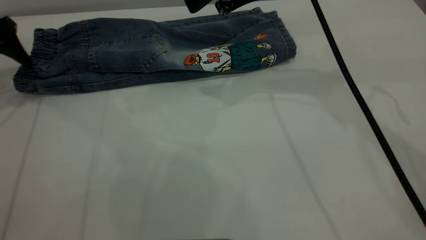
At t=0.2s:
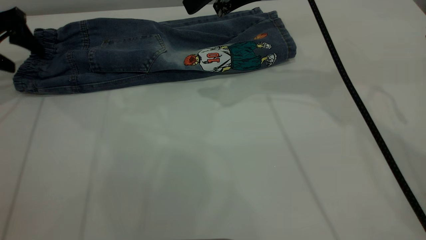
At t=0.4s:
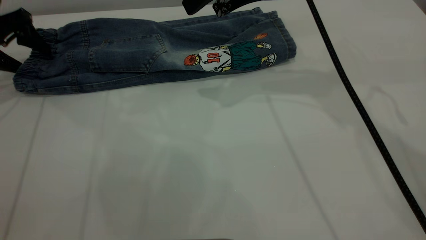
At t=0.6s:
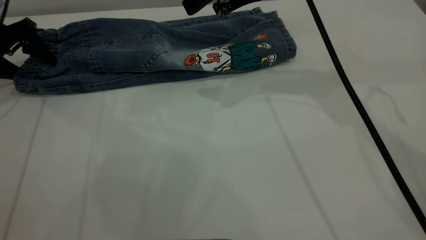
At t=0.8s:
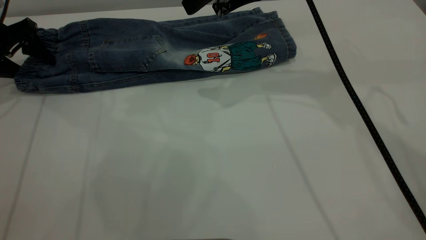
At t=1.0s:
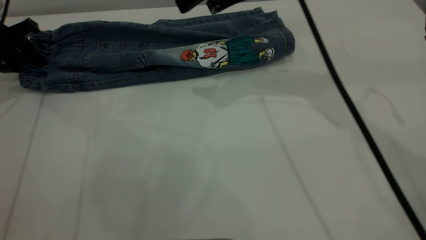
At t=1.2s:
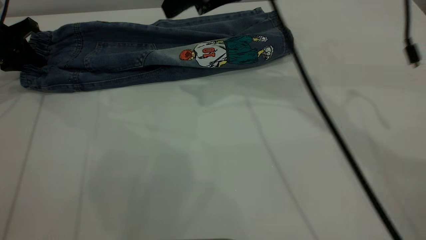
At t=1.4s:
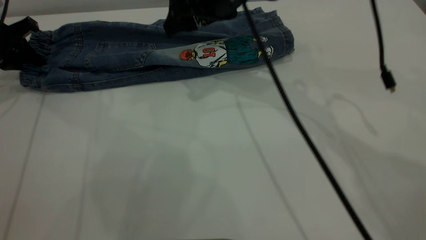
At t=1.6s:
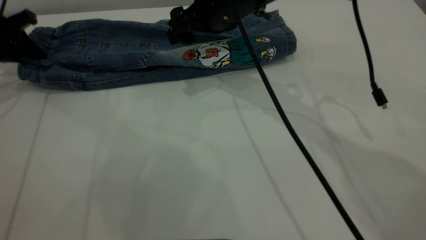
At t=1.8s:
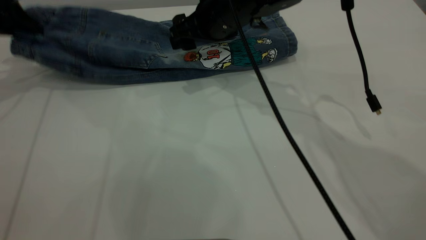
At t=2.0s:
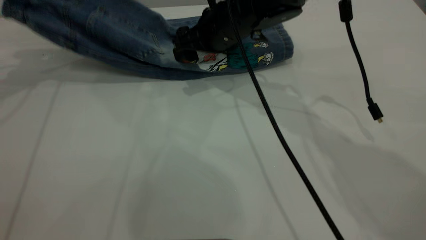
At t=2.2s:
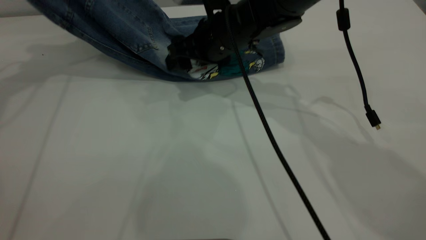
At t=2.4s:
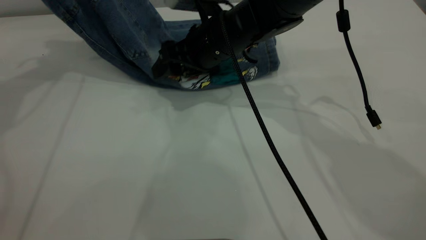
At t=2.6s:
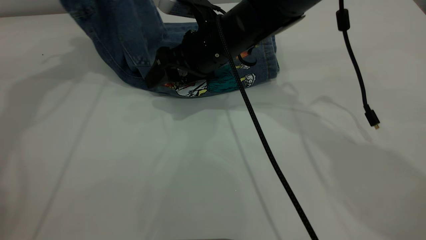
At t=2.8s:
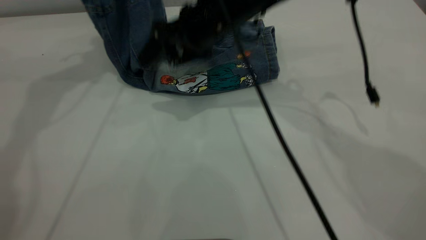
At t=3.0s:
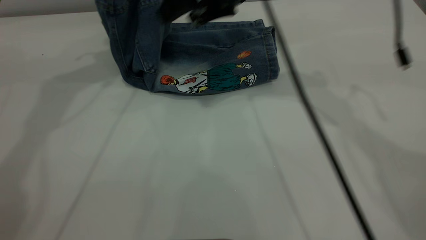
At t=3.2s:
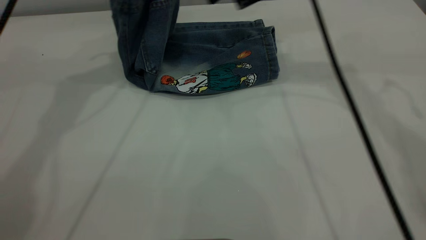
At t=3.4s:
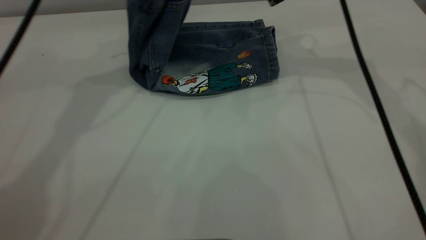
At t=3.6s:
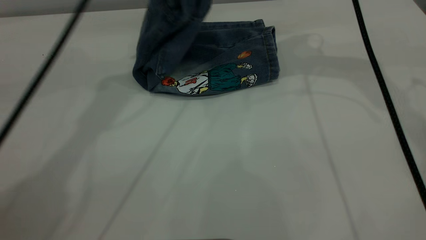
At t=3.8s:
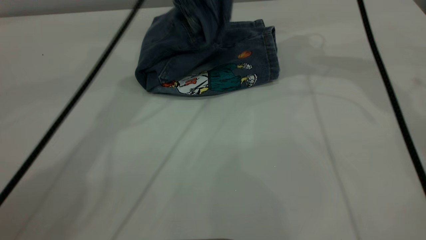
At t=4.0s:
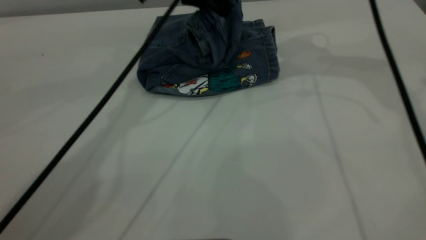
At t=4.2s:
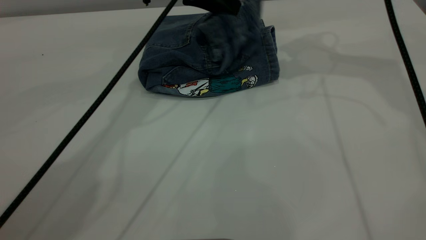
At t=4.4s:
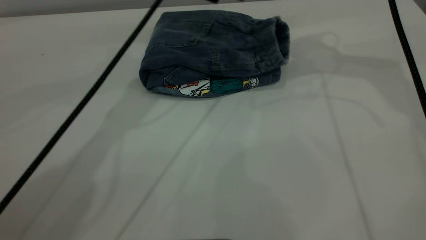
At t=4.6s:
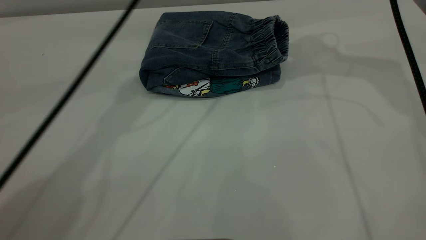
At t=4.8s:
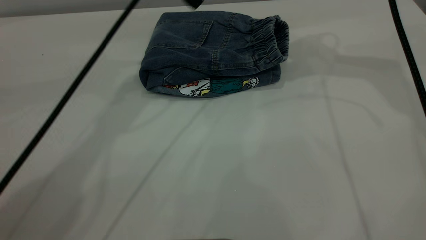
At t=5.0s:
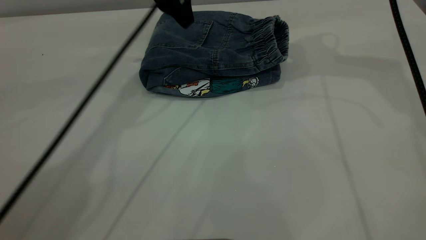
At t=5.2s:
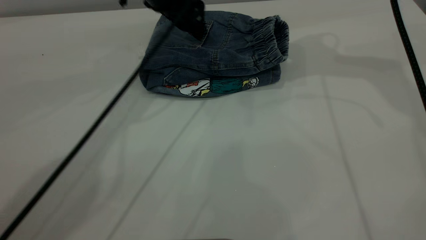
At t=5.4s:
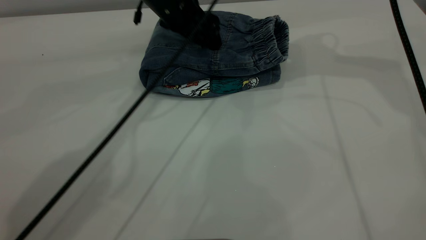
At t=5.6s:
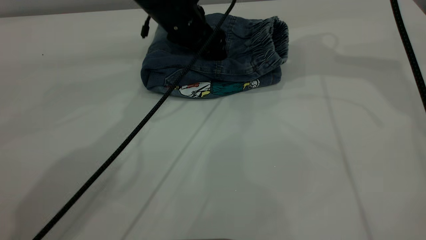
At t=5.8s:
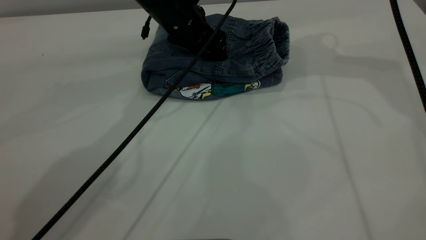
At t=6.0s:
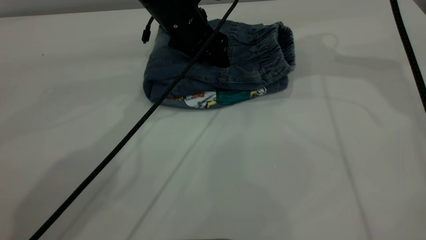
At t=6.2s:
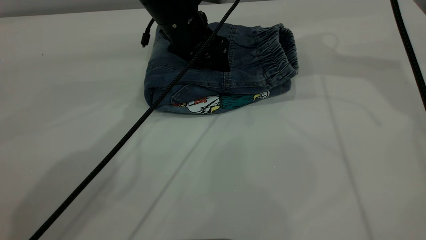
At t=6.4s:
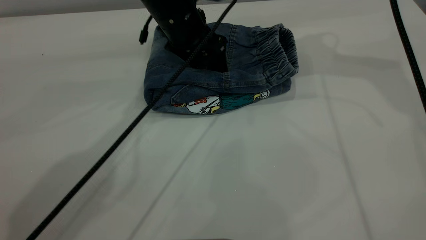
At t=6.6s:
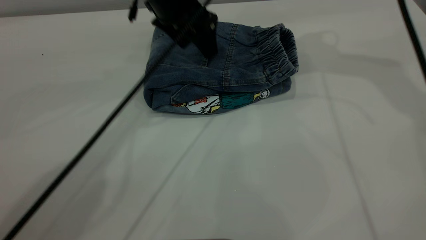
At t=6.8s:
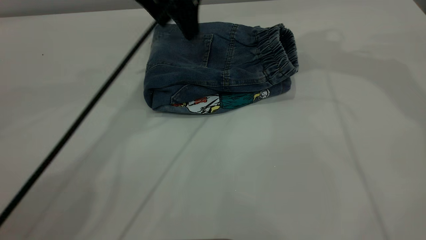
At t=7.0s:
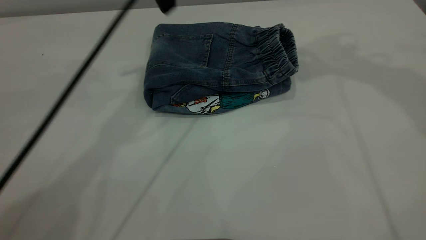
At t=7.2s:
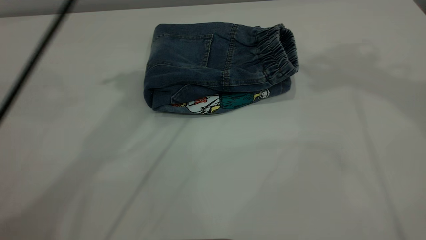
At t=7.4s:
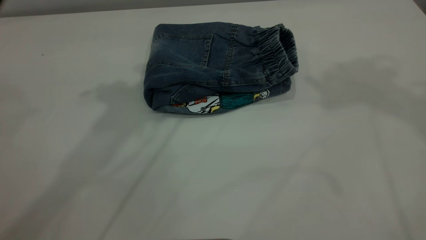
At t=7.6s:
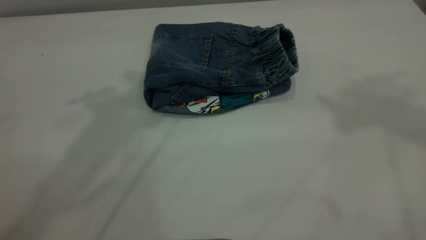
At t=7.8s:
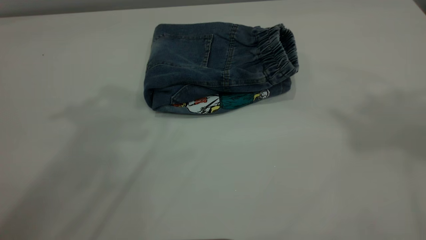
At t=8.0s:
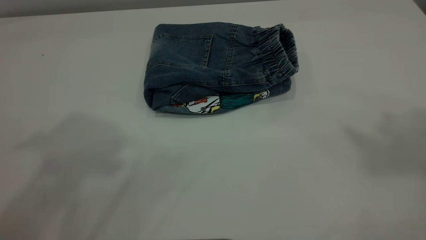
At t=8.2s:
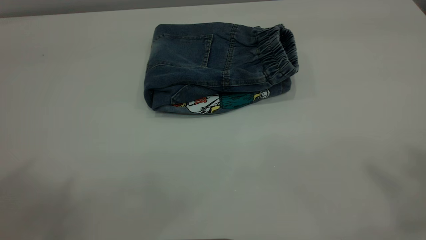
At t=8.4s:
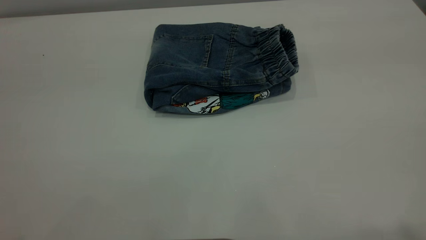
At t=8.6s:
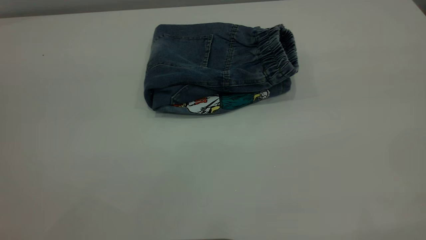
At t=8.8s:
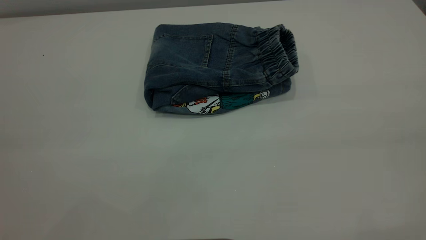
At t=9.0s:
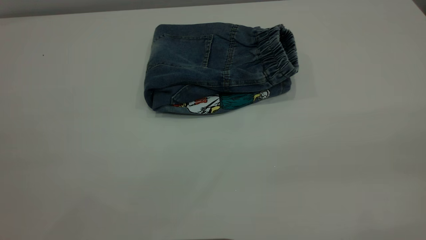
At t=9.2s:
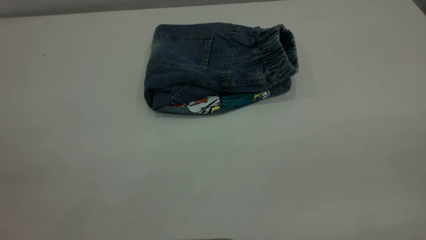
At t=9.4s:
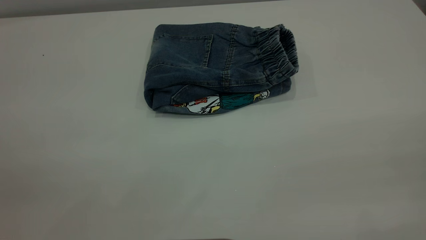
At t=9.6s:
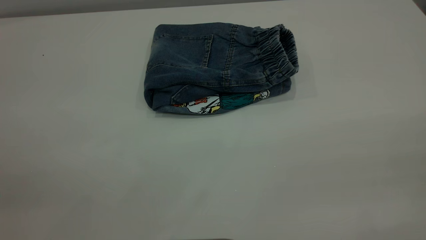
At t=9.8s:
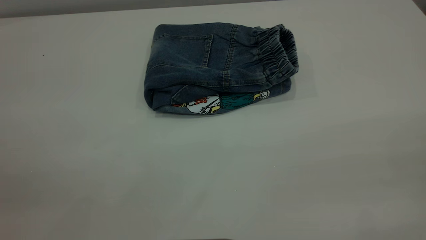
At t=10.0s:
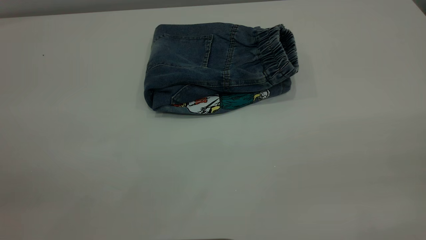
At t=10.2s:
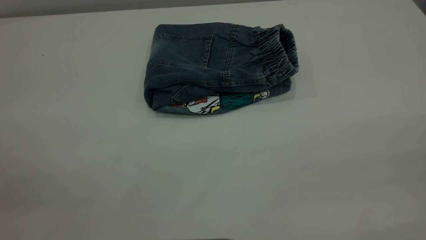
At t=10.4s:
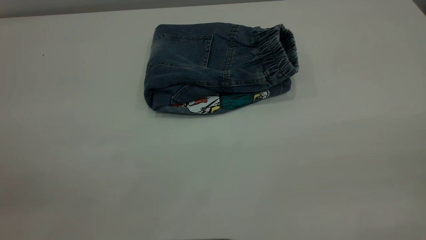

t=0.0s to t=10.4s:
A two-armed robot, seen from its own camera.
Step, t=0.0s to t=4.4s: Fold the pants from left to right.
t=0.0s to t=1.4s: The right gripper moves downward and to the left, some 10 cm. The left gripper closes up.
t=1.4s to t=3.0s: The left gripper shifts roughly 25 cm to the right and upward; the right gripper ends up some 5 cm from where it was.
t=3.0s to t=4.4s: The right gripper is displaced to the right and upward by approximately 15 cm, while the left gripper is displaced to the right and downward by approximately 15 cm, and opens.
t=4.4s to t=6.0s: The left gripper is displaced downward by about 10 cm.
t=6.0s to t=7.4s: The right gripper moves upward and backward, approximately 25 cm. Meanwhile the left gripper is displaced upward by some 25 cm.

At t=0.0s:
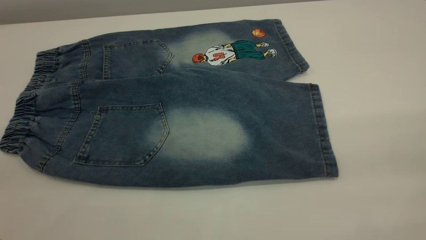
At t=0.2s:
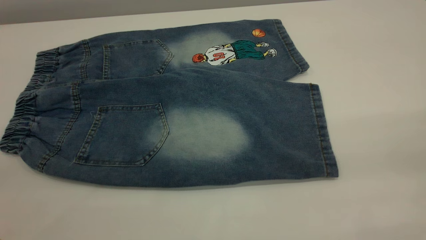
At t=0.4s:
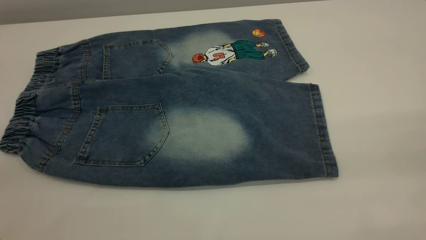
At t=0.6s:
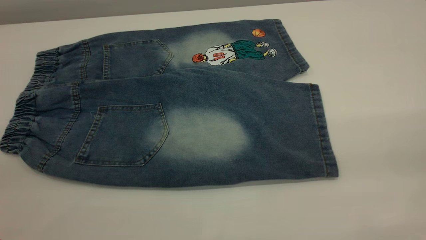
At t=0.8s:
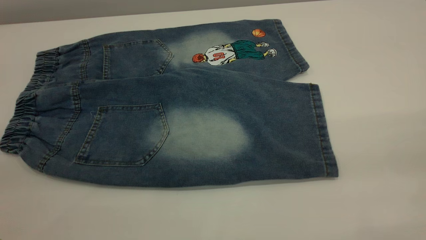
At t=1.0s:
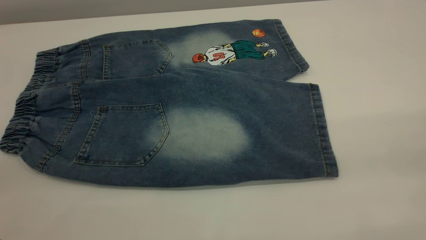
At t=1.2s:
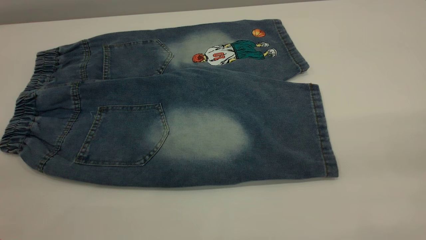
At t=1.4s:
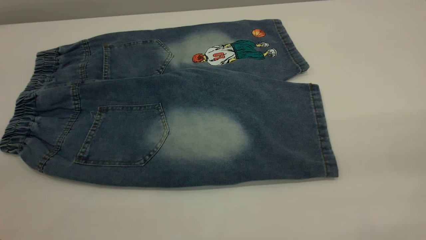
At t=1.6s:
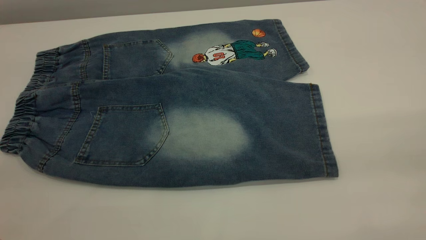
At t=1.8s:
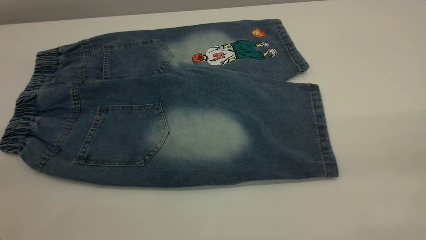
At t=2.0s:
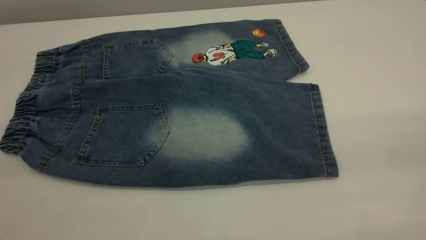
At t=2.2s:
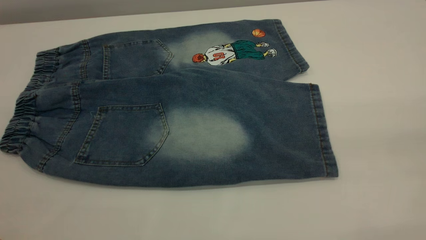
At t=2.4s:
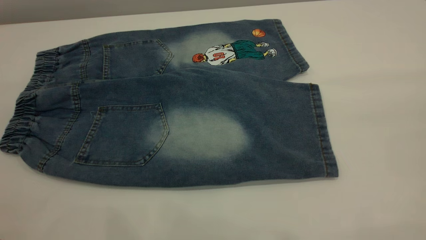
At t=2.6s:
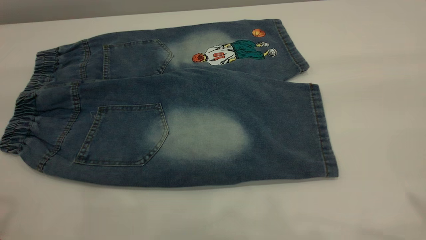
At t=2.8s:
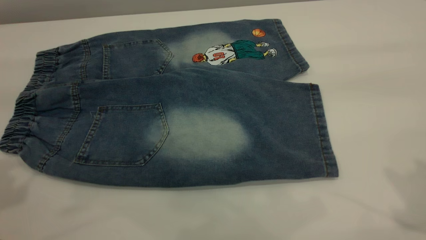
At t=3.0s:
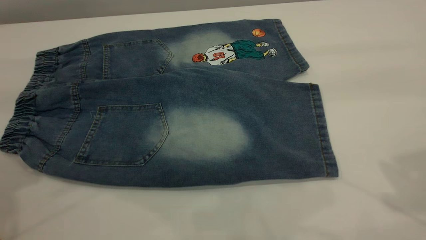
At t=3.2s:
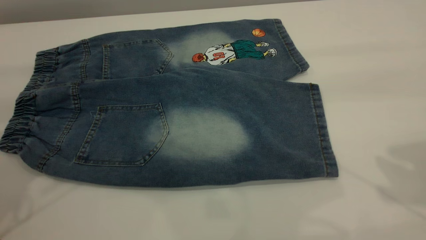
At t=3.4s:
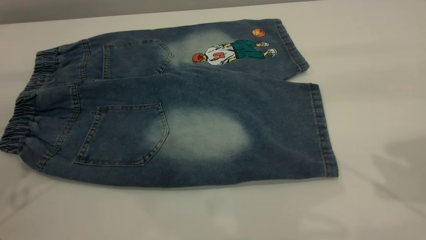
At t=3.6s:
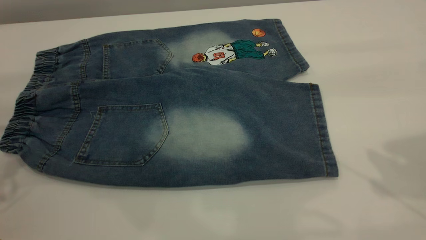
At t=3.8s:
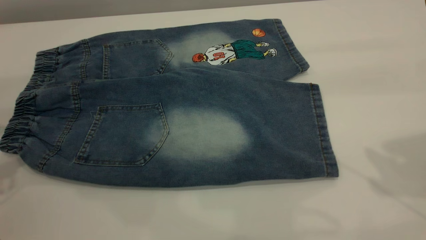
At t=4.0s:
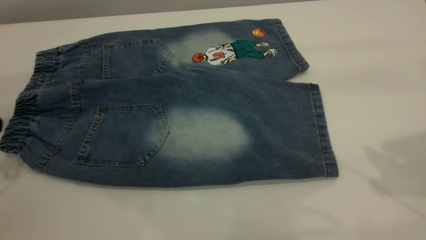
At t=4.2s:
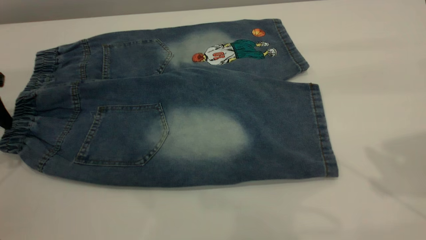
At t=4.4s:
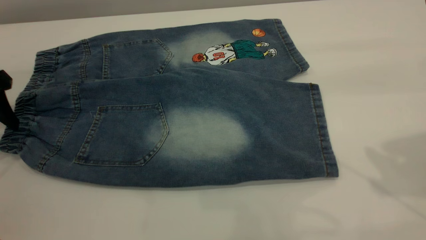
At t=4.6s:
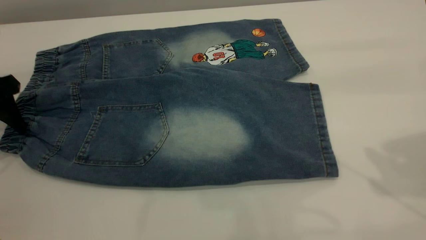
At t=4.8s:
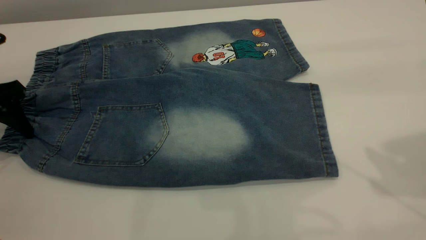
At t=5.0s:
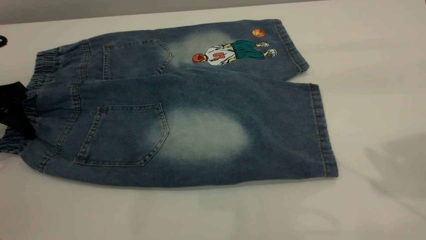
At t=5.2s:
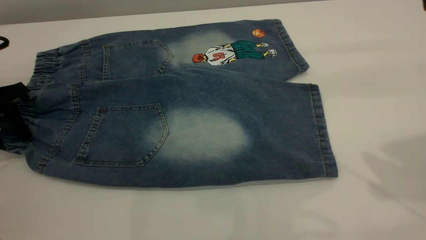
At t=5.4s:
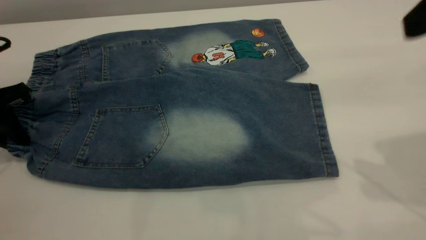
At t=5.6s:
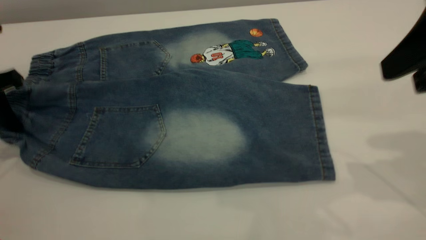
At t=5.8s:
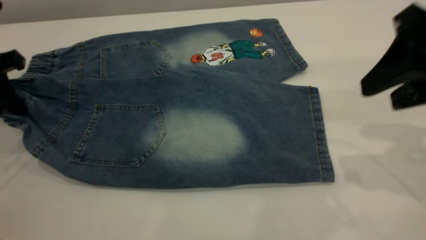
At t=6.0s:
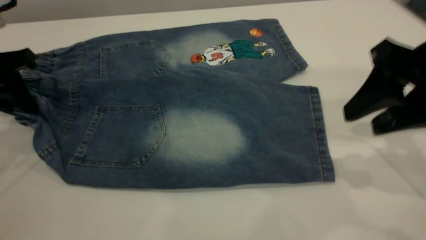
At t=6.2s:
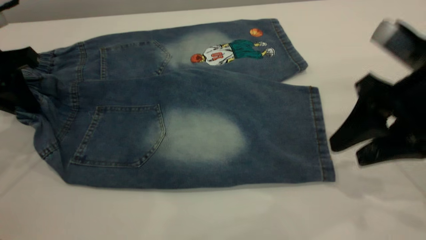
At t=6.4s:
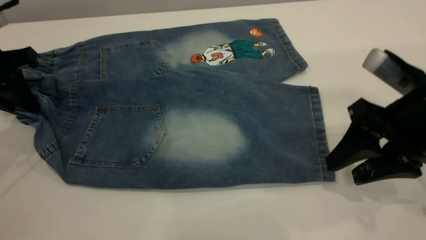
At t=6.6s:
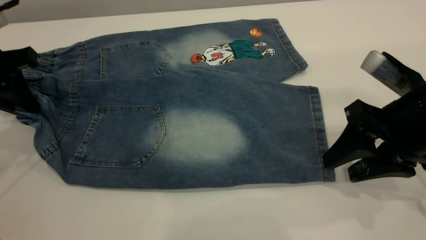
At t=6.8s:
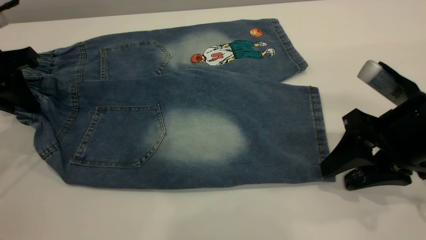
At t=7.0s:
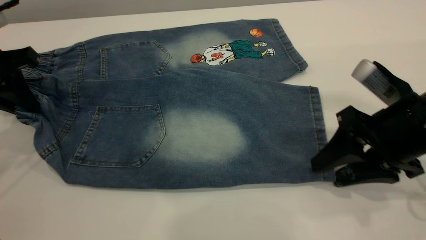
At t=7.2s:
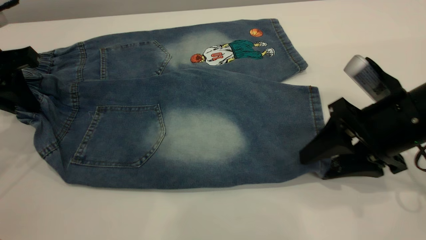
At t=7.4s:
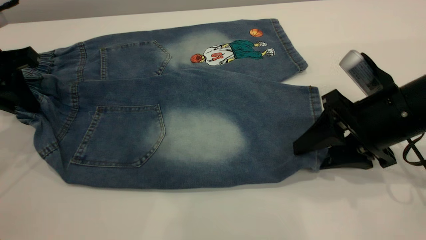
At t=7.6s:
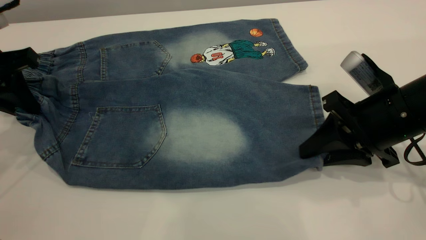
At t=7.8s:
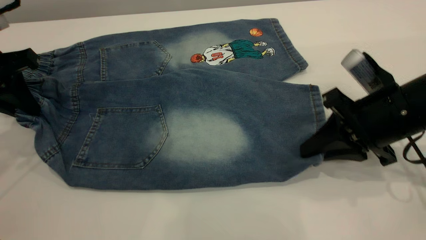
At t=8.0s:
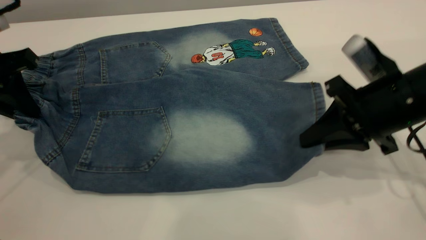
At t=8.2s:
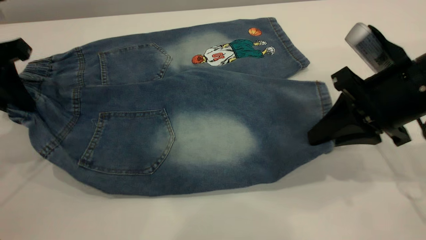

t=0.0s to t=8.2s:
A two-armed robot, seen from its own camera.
t=0.0s to t=1.6s: Both grippers stay put.
t=3.2s to t=5.0s: The left gripper travels downward and forward by roughly 15 cm.
t=5.0s to t=6.6s: The left gripper is displaced upward by roughly 5 cm, and closes up. The right gripper moves downward, roughly 20 cm.
t=6.6s to t=8.2s: The right gripper closes up.
